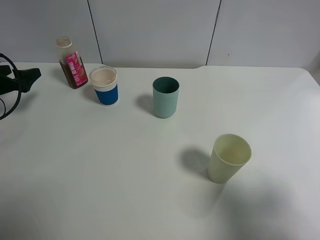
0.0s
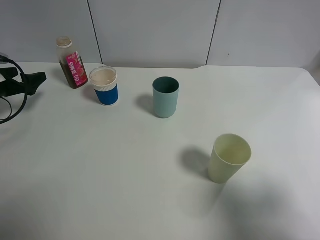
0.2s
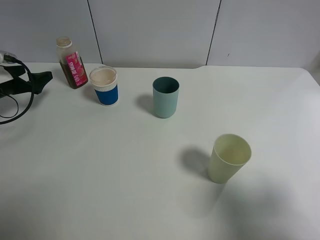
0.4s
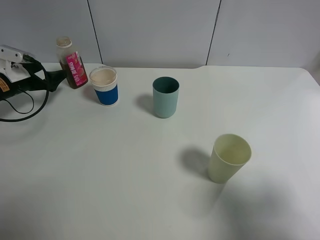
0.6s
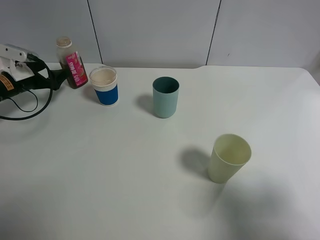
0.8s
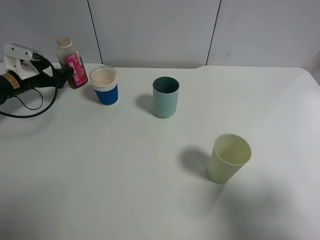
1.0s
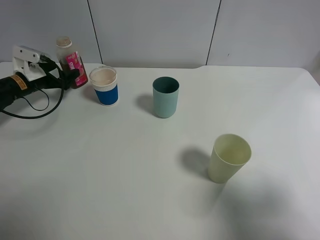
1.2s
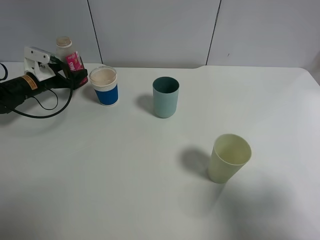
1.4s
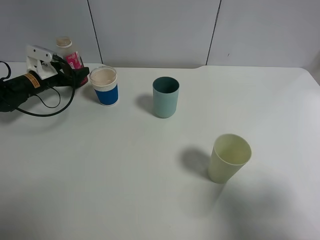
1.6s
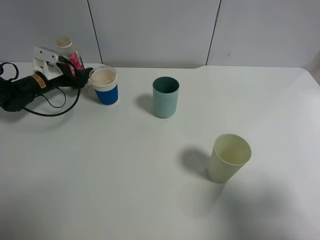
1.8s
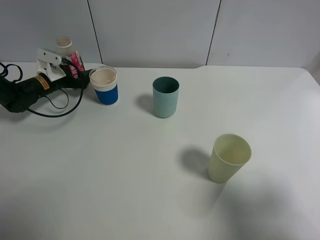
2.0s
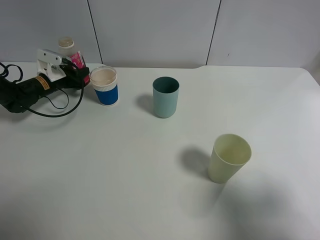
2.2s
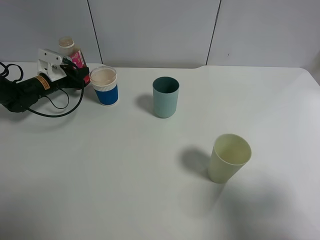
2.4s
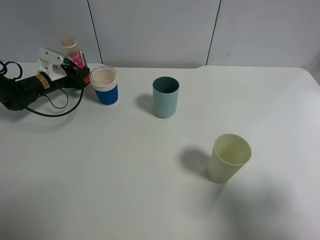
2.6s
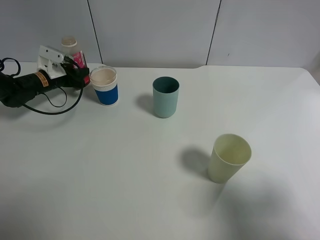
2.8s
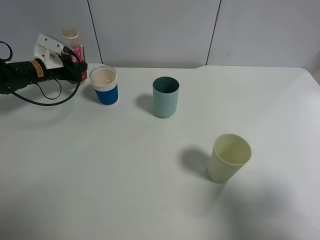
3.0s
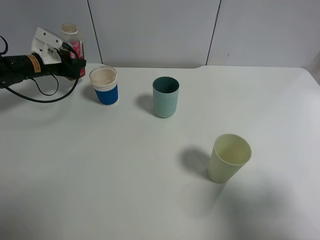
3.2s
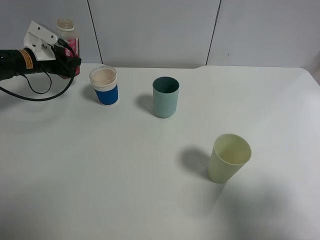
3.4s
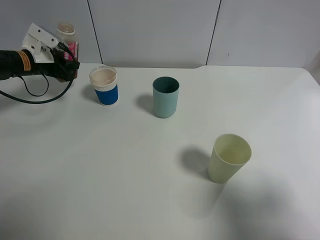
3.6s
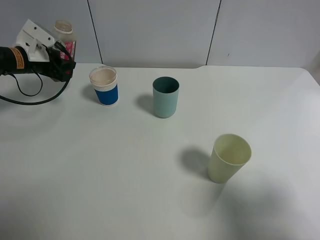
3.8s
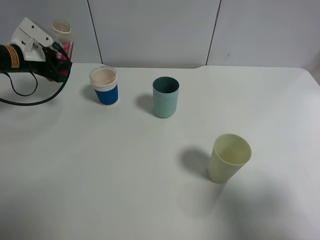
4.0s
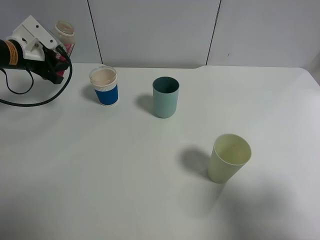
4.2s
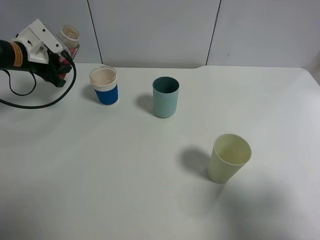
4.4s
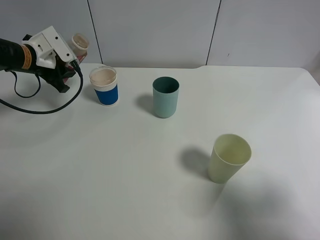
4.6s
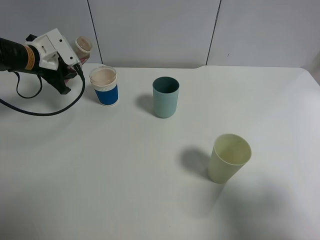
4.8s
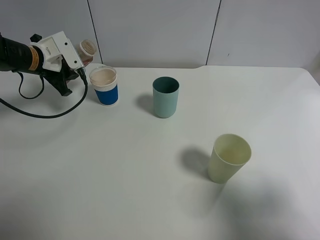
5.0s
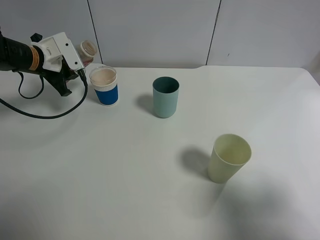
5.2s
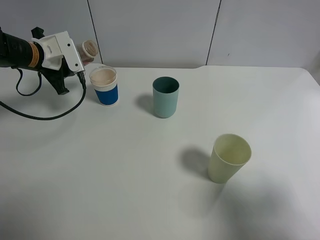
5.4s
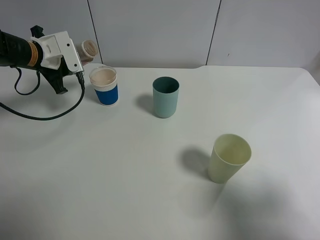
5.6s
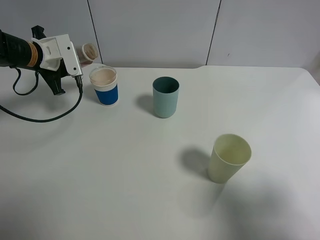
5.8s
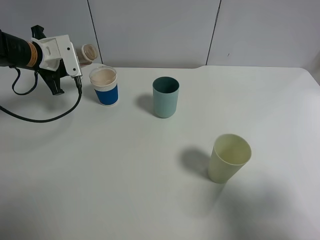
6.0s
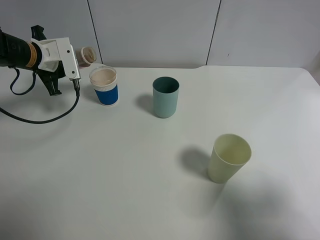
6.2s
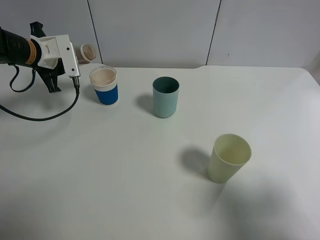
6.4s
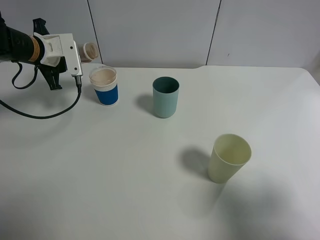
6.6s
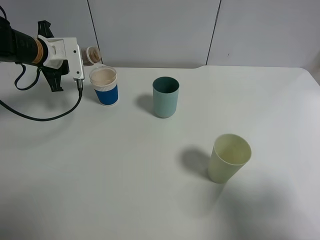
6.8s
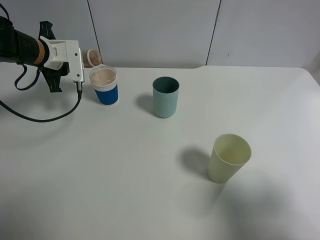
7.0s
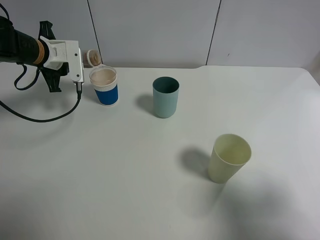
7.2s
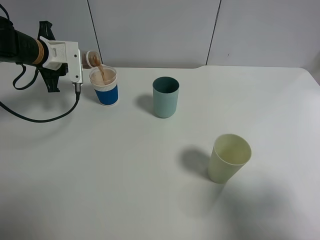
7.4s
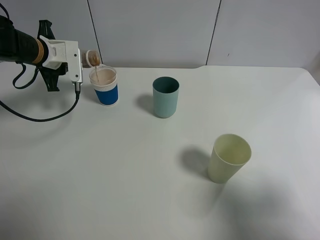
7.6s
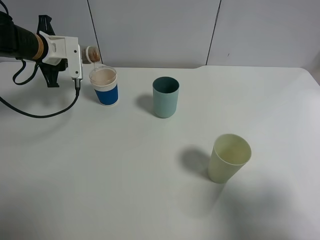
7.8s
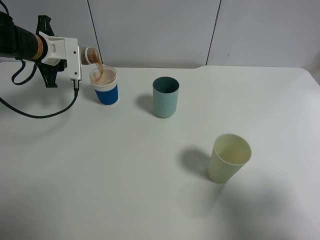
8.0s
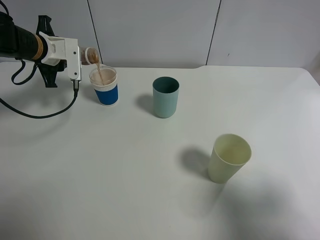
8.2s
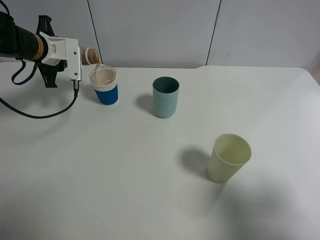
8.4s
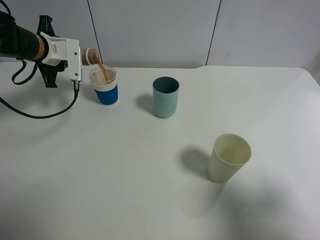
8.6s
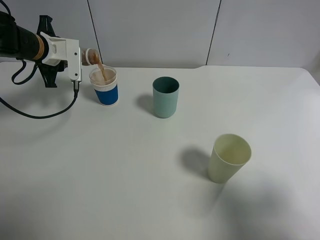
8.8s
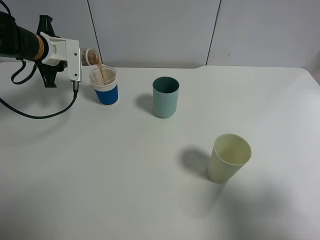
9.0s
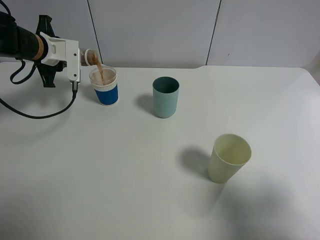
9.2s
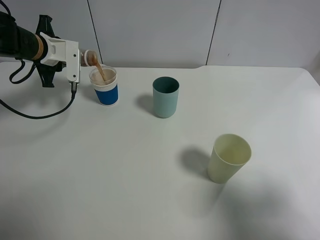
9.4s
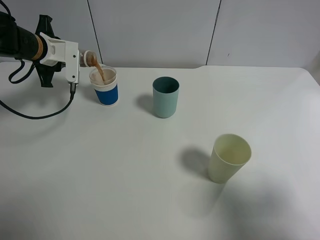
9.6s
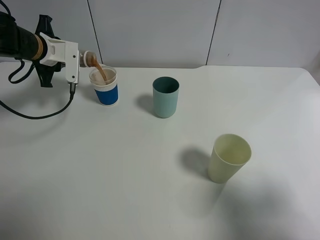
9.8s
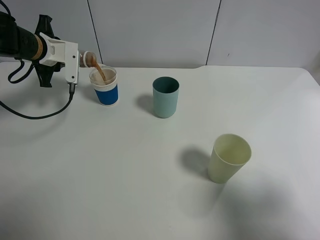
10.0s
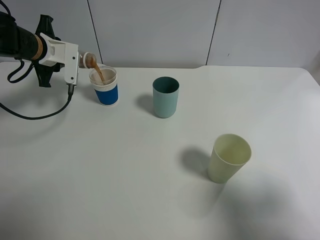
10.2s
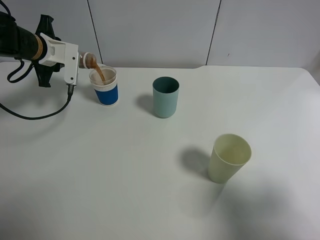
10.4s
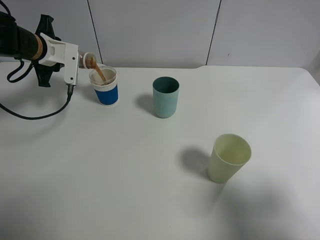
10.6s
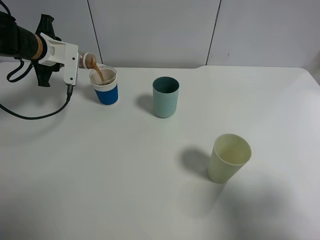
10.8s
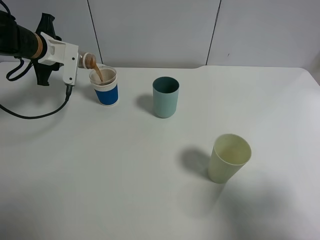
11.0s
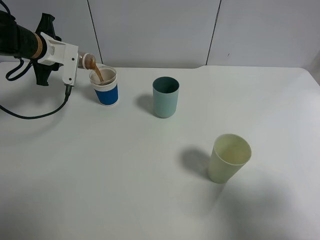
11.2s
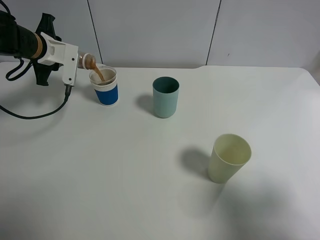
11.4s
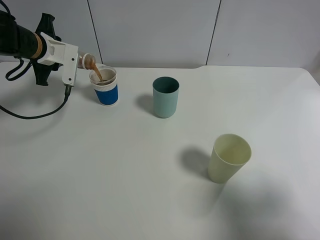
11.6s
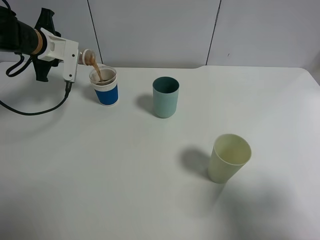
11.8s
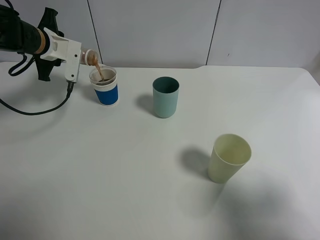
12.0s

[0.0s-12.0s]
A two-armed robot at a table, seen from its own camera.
Task of the whole recording: use a gripper to hold the bottle of the drink and pour it into a random cup.
0.0s to 1.6s: The left gripper travels forward, to the right and downward by roughly 15 cm.
1.6s to 3.0s: The left gripper closes its fingers.
3.0s to 4.4s: The left gripper is displaced upward and backward by approximately 10 cm.
6.0s to 9.0s: The grippers move only a little.
9.0s to 12.0s: The grippers move only a little.

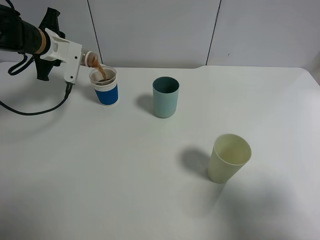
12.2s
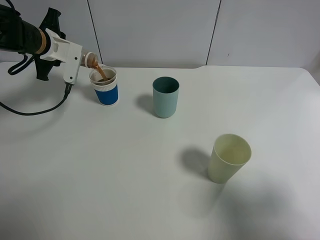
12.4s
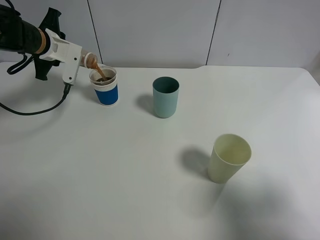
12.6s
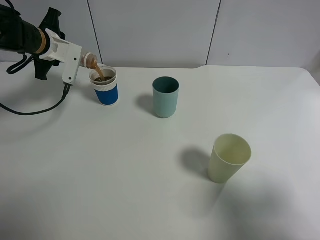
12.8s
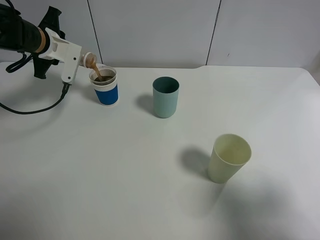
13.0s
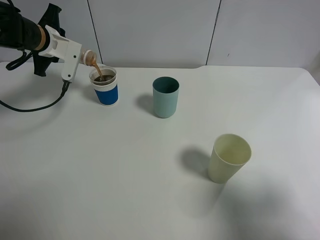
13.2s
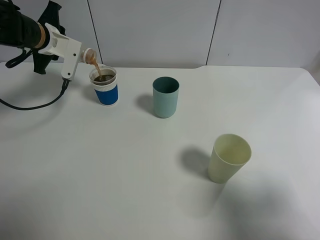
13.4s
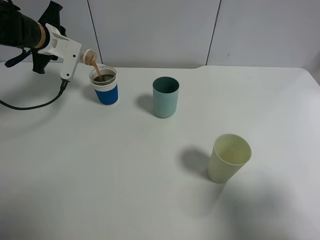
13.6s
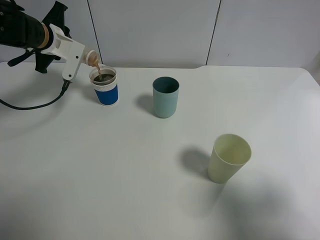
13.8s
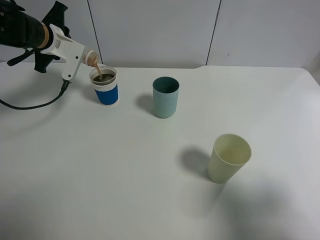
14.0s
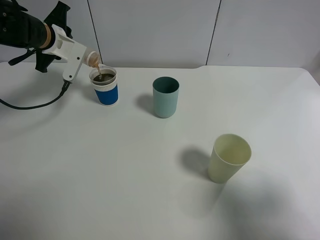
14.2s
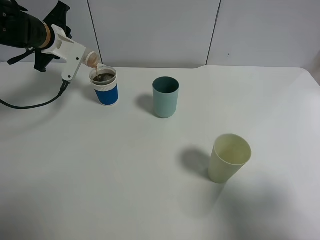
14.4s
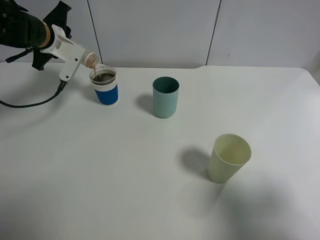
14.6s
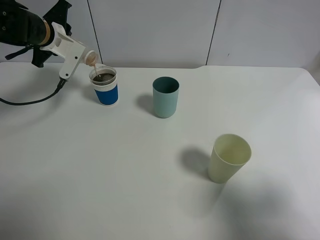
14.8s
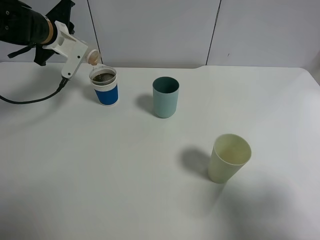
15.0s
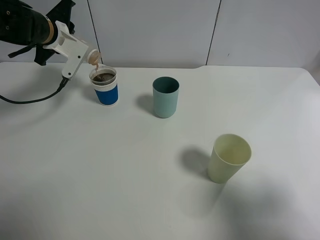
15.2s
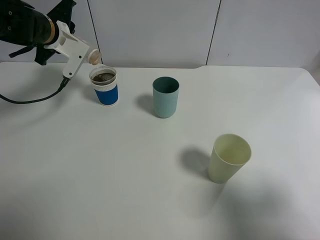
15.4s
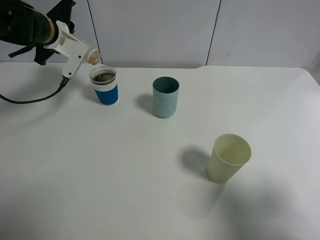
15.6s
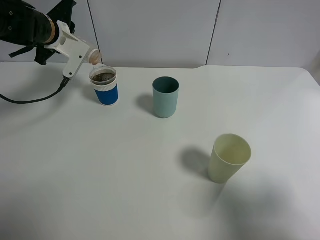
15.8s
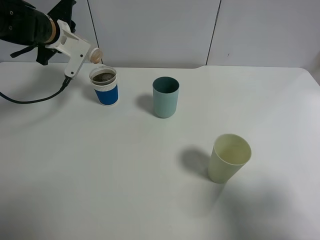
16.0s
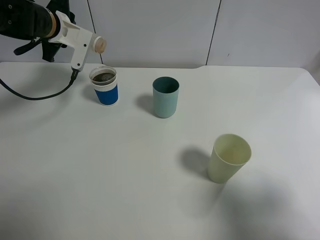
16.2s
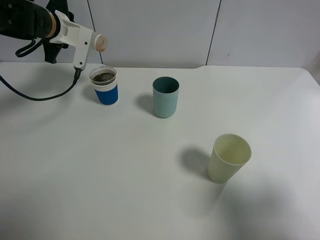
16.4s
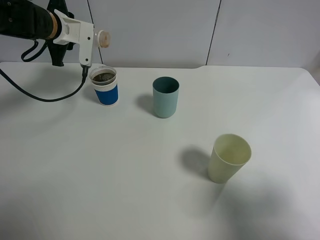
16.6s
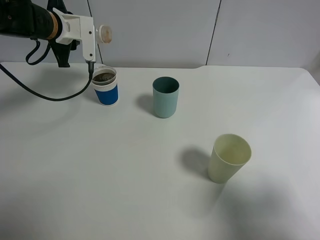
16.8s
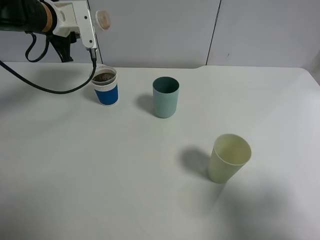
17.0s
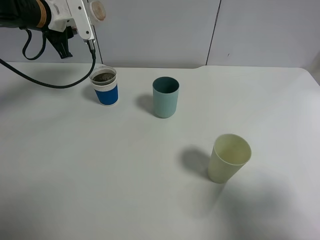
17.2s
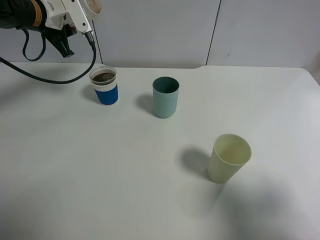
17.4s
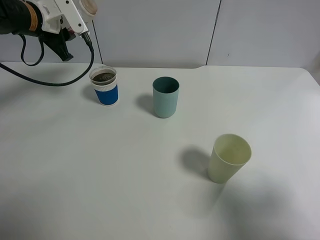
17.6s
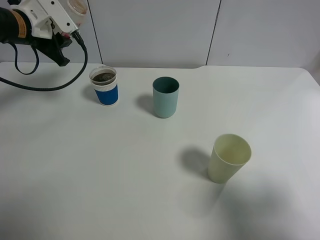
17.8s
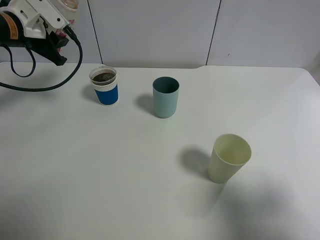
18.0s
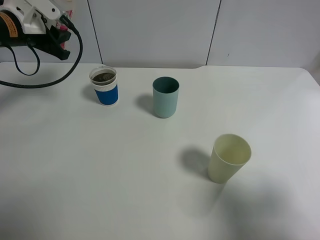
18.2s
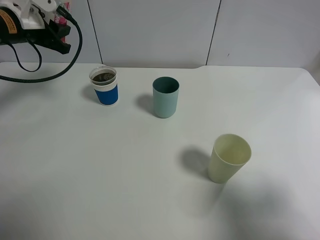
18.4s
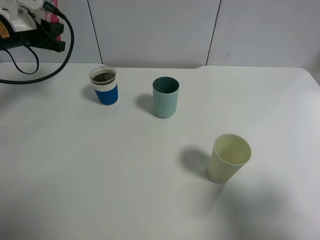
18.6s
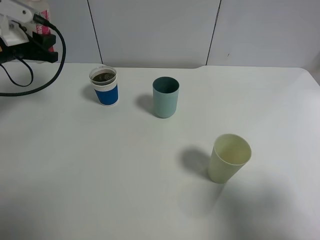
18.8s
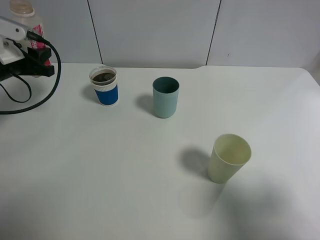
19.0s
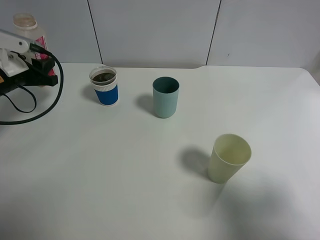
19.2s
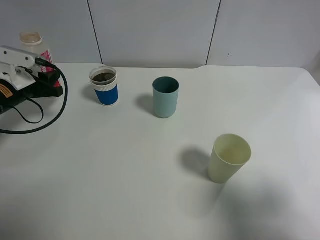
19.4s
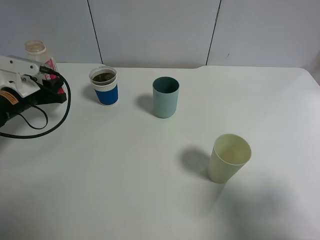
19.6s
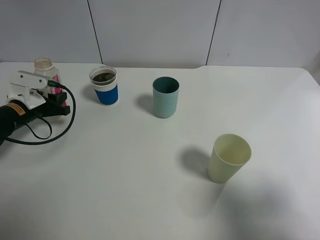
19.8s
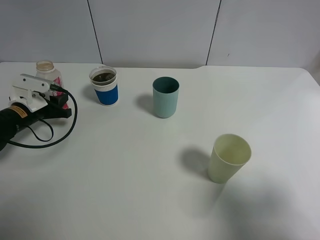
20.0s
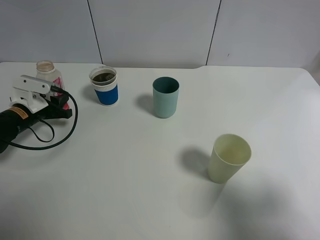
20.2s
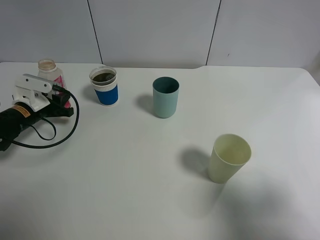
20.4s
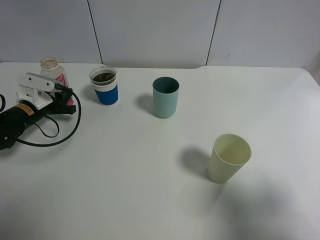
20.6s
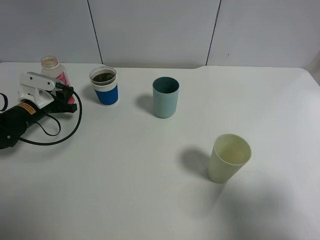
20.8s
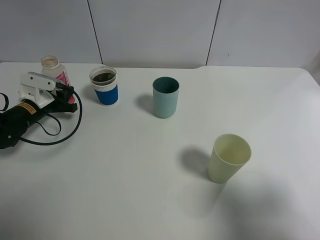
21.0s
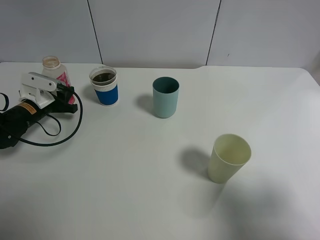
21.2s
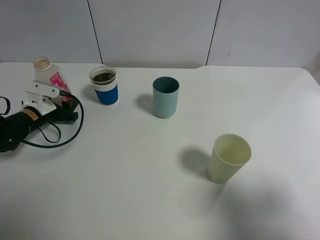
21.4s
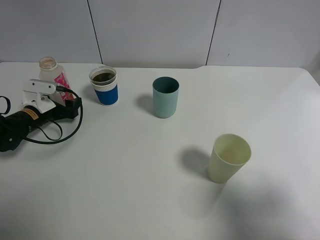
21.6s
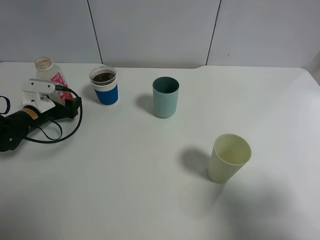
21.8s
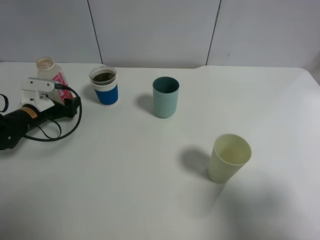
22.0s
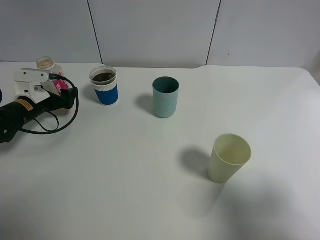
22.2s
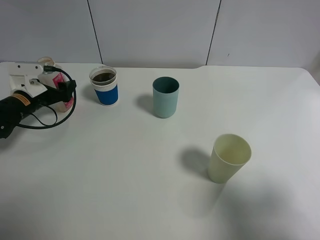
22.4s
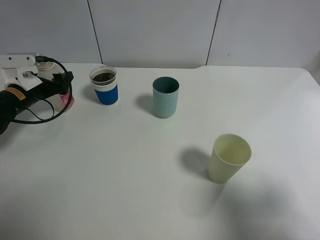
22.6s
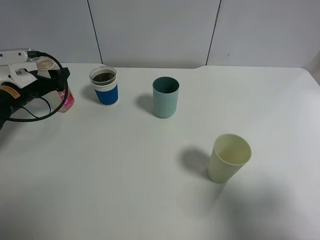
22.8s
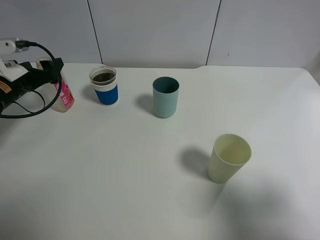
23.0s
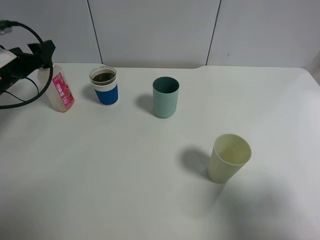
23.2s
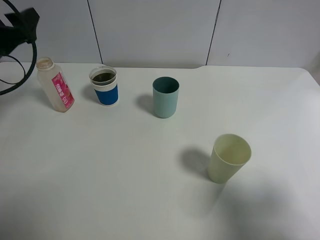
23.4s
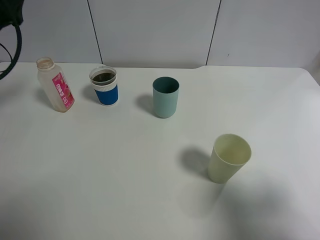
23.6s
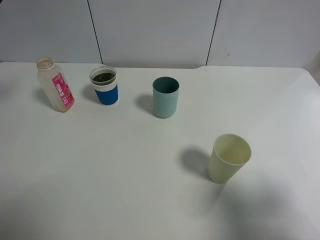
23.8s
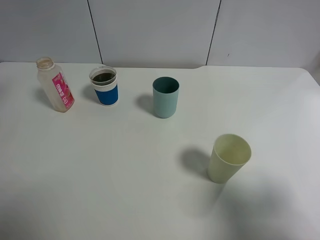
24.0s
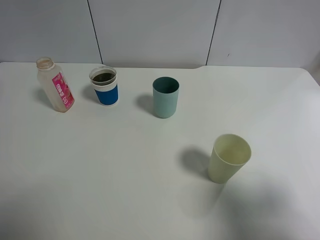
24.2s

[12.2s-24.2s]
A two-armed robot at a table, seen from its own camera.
Task of the whole recording: use a gripper to hold the bottle of the drink and pour it into a random cup.
12.2s to 15.2s: The grippers move only a little.
16.6s to 18.2s: The left gripper travels to the left by roughly 5 cm.
18.2s to 19.8s: The left gripper is displaced downward by approximately 15 cm.
19.8s to 21.2s: The grippers make only small movements.
21.2s to 22.6s: The left gripper travels upward by about 5 cm, and opens its fingers.
22.6s to 24.2s: The left gripper is displaced upward and backward by approximately 25 cm.
